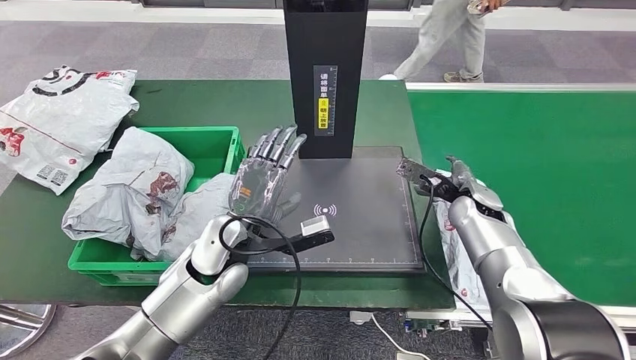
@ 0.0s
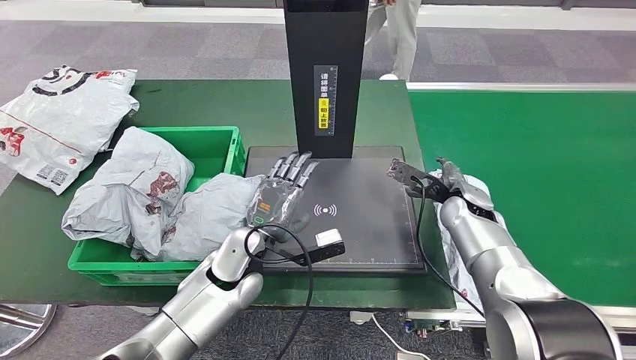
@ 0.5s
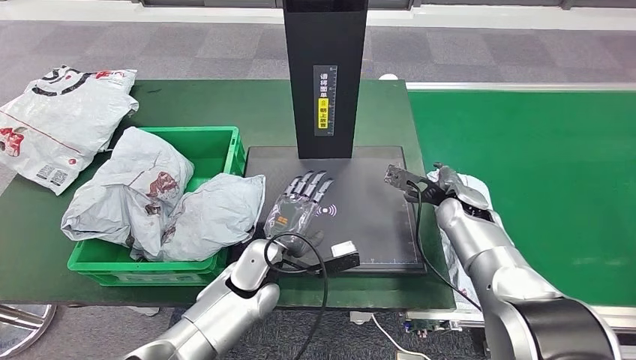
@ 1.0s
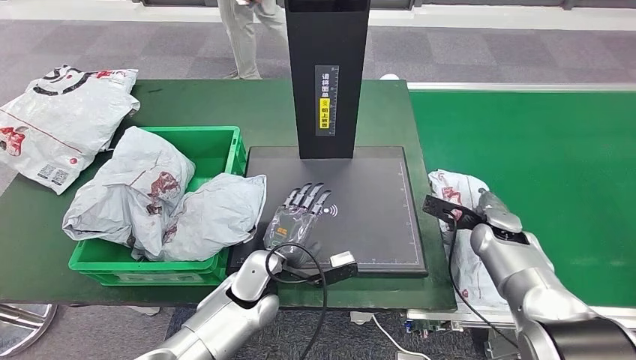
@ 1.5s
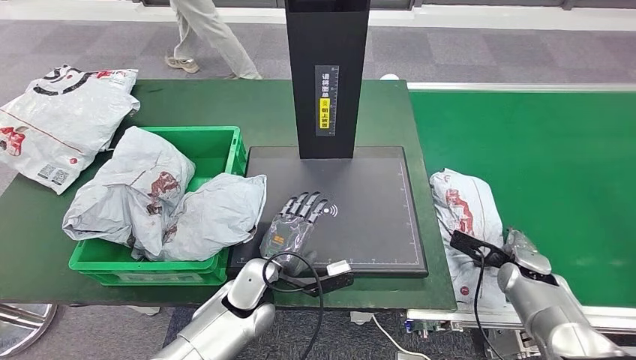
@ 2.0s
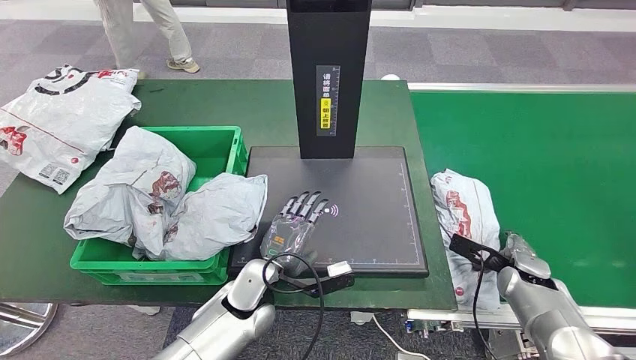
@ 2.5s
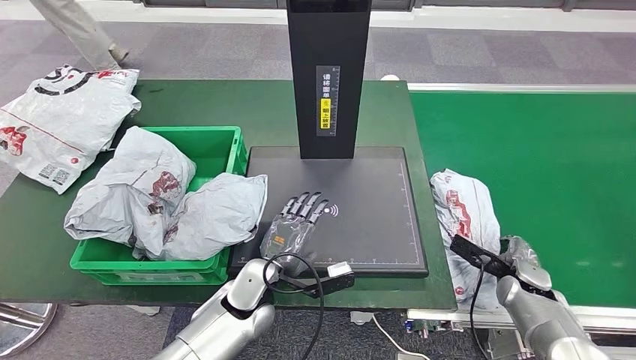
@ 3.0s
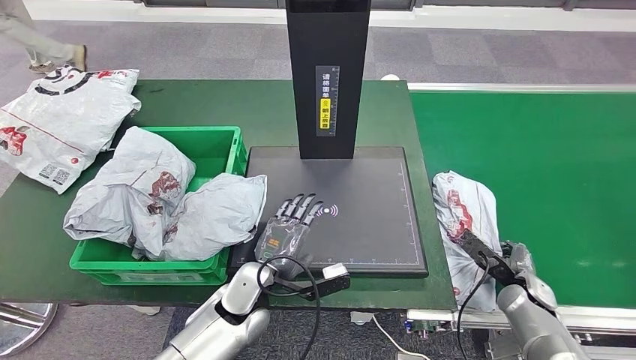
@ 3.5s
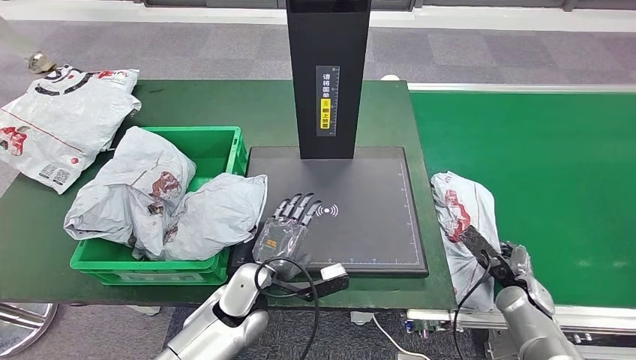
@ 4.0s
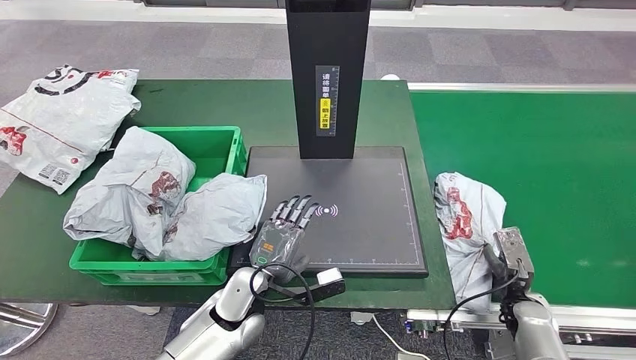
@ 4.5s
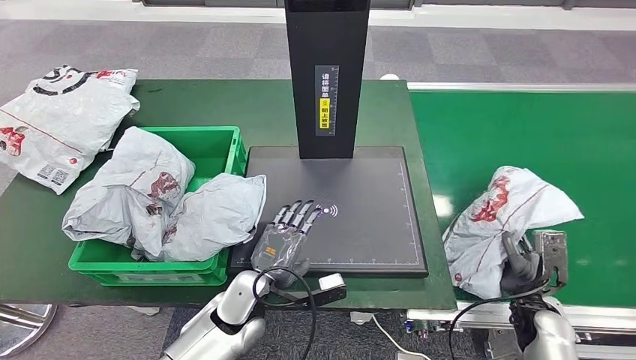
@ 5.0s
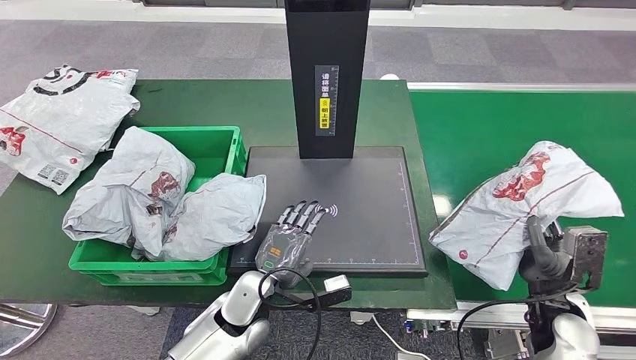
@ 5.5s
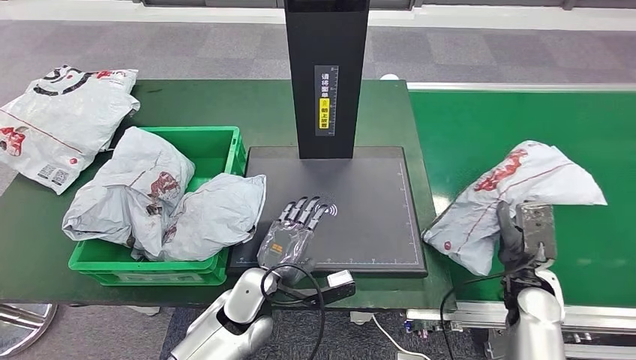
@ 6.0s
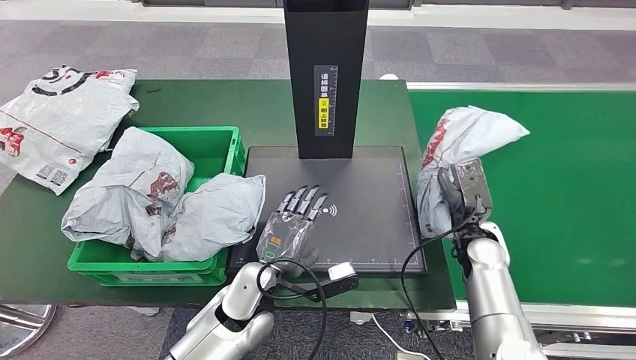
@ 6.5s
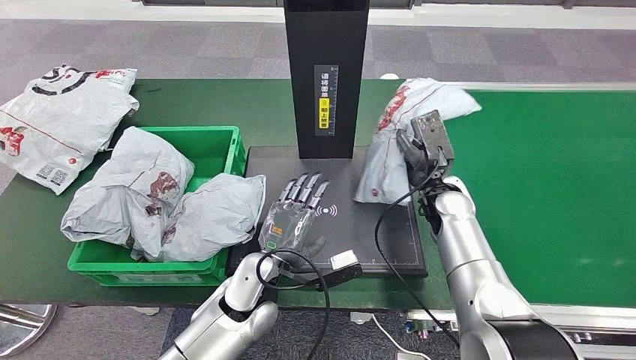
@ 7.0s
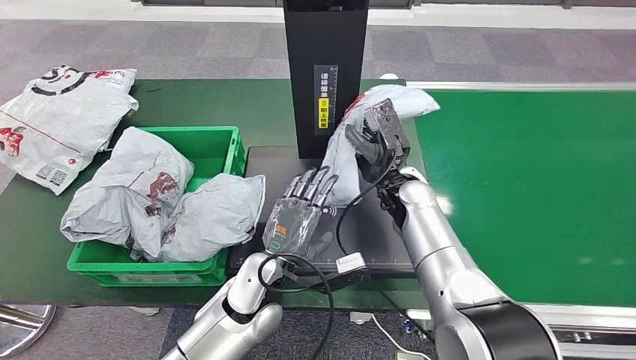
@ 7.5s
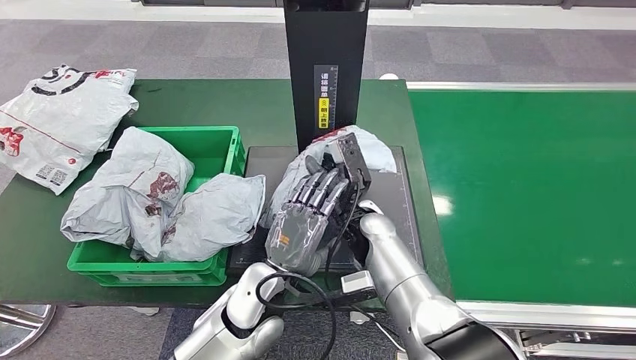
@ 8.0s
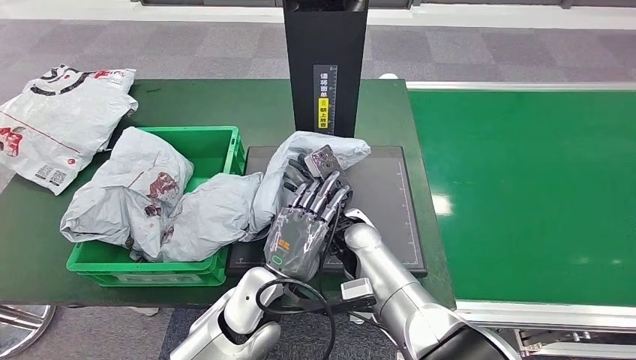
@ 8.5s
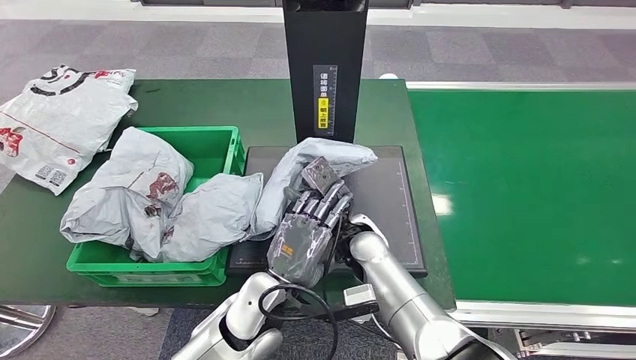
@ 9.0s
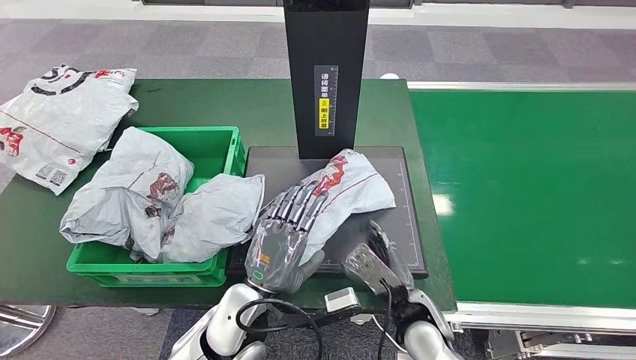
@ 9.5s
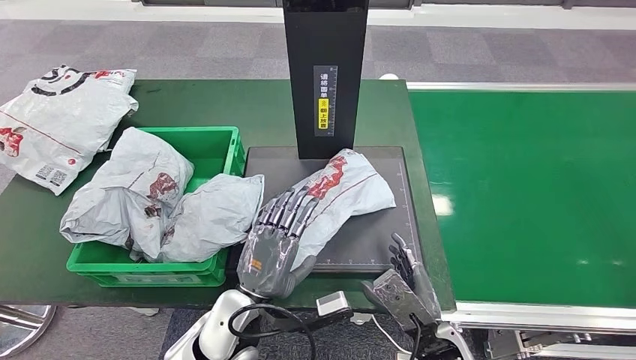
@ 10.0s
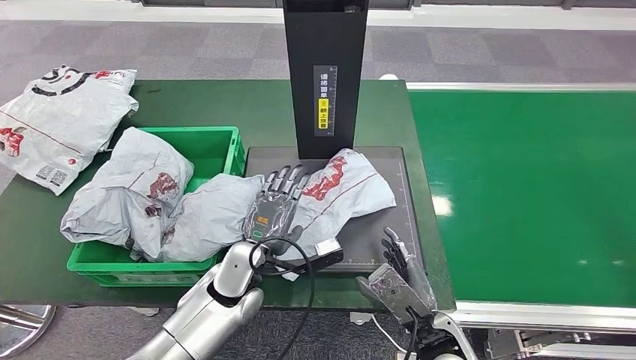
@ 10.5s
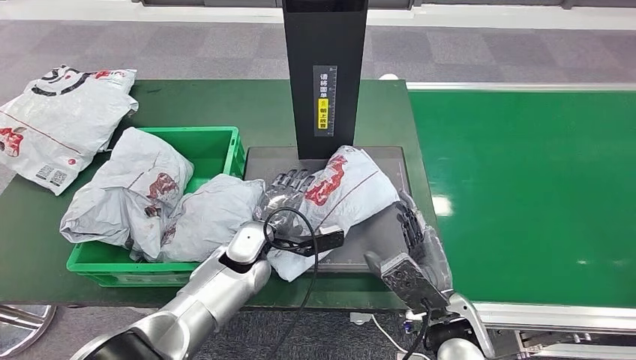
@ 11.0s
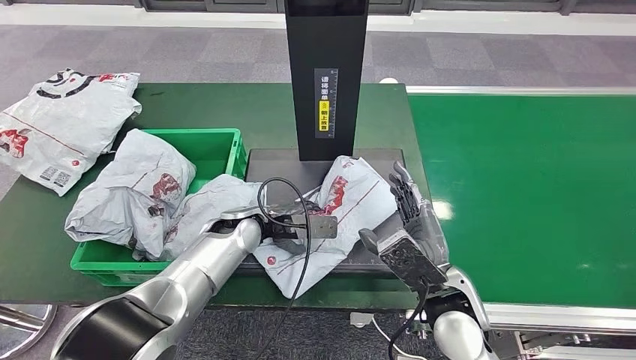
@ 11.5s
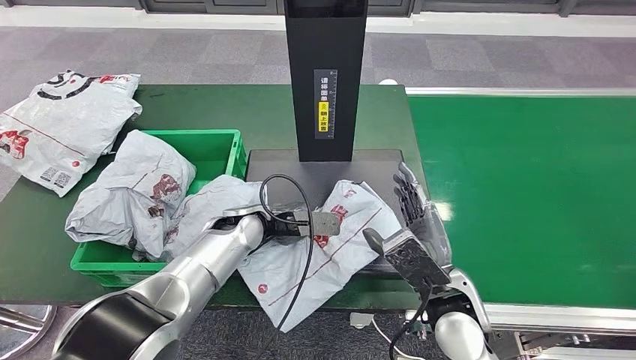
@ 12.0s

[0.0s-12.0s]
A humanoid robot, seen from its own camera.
Step, 0.0s to 7.0s: Pick up the parcel from the conveyor belt.
Step, 7.5s to 10.5s: Place the parcel onto the inbound machine.
2.0s to 4.0s: The right hand shifts by roughly 5 cm.
4.0s to 6.0s: The right hand moves upward, some 5 cm.
8.0s to 10.0s: The right hand travels backward and to the right by approximately 25 cm. Meanwhile the left hand changes place by about 5 cm.

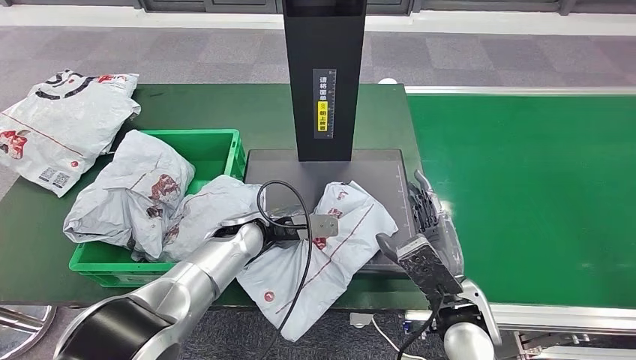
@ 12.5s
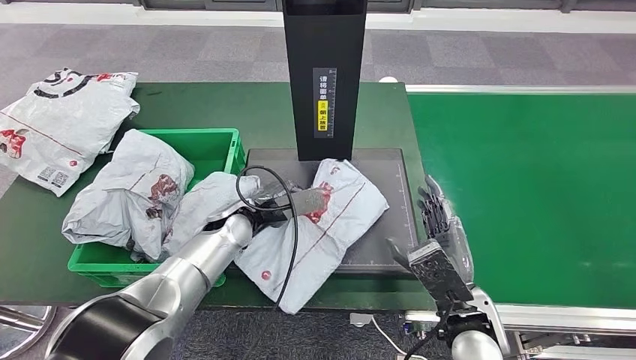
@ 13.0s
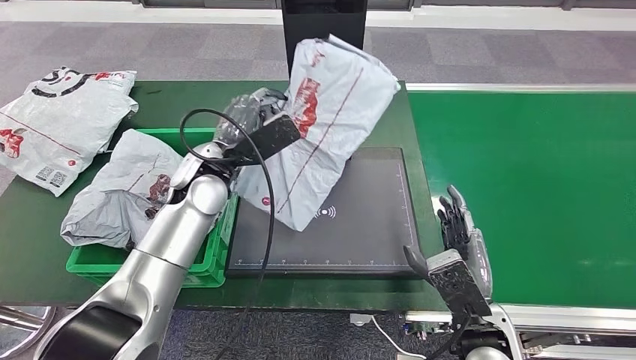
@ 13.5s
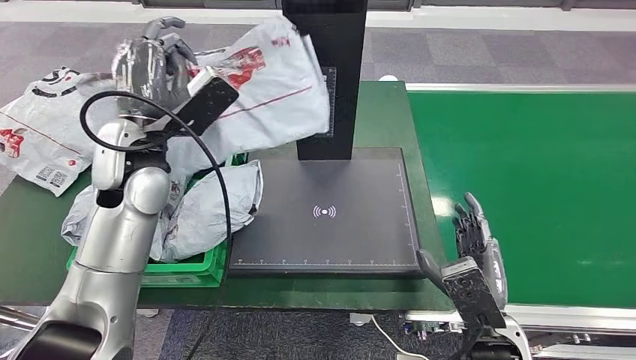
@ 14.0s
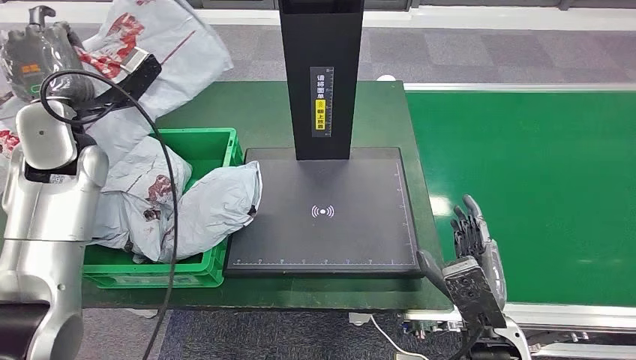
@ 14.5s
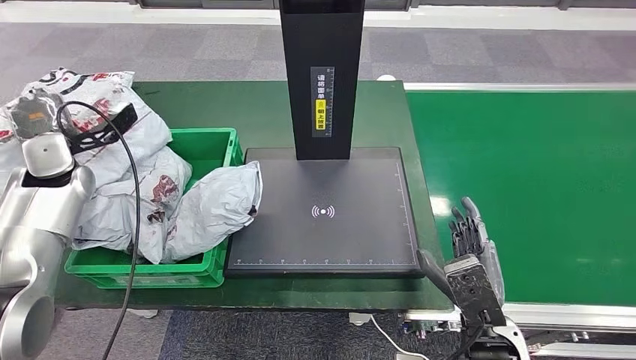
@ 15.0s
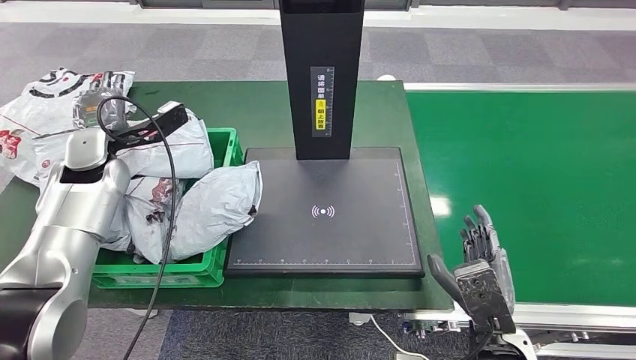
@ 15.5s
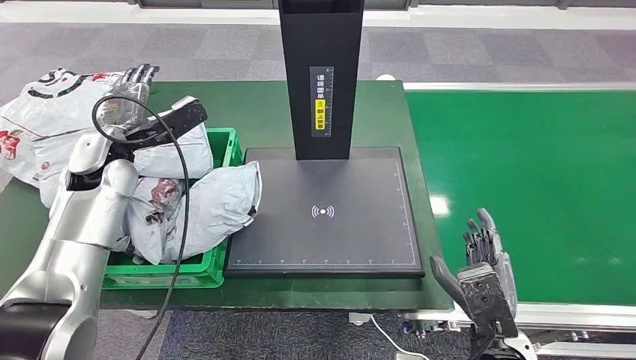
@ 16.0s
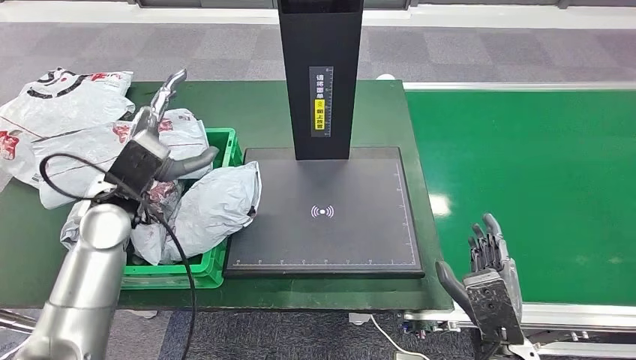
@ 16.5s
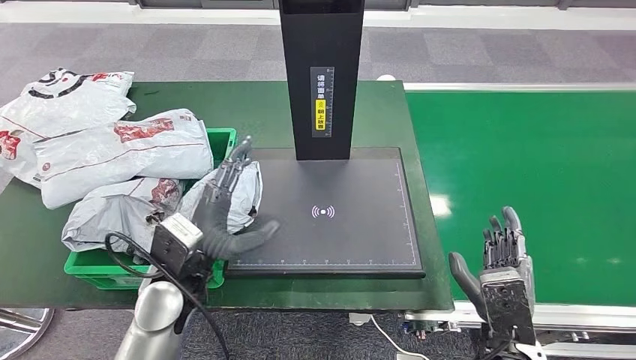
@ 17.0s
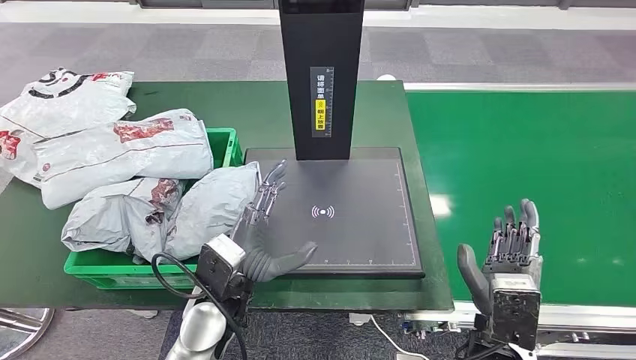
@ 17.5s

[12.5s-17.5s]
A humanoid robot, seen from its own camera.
Step, 14.5s to 17.0s: Place the parcel into the delivery box.
